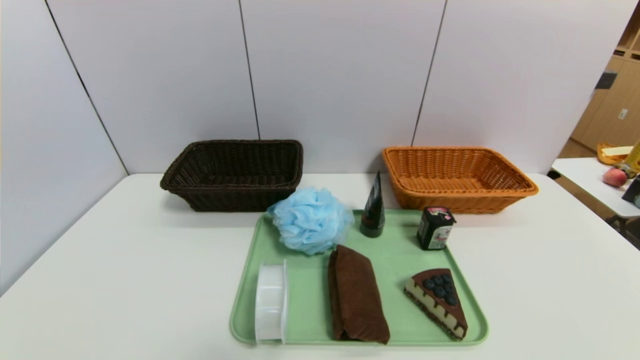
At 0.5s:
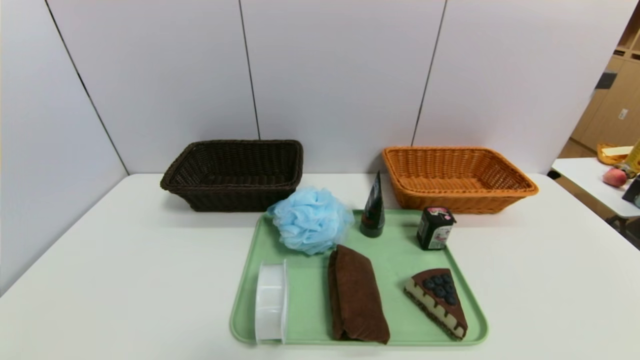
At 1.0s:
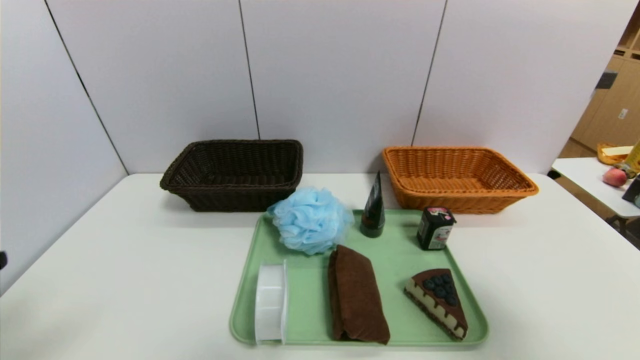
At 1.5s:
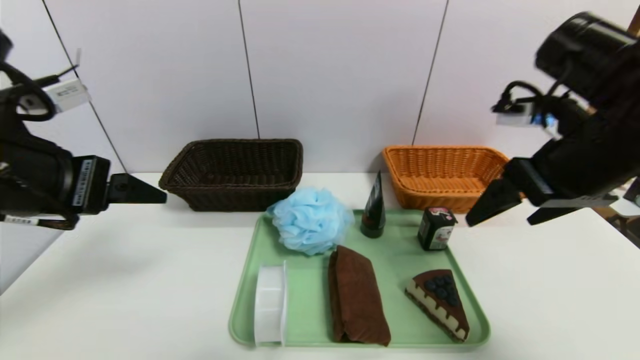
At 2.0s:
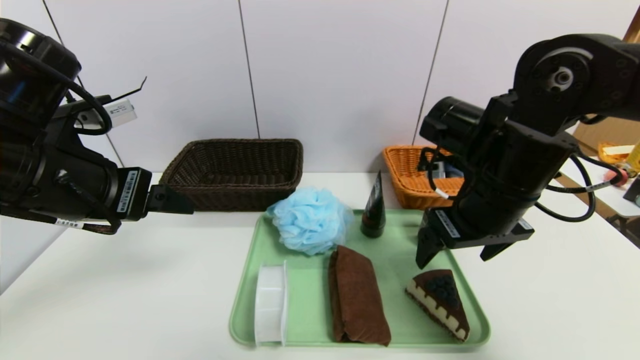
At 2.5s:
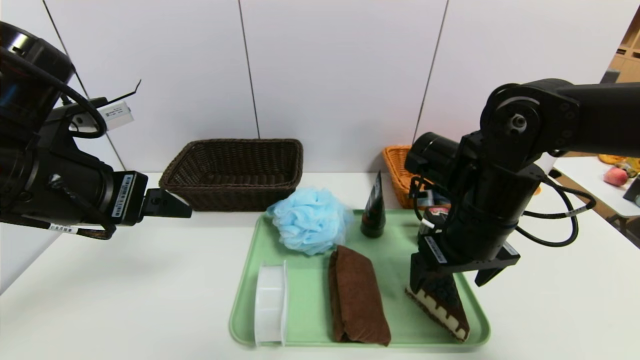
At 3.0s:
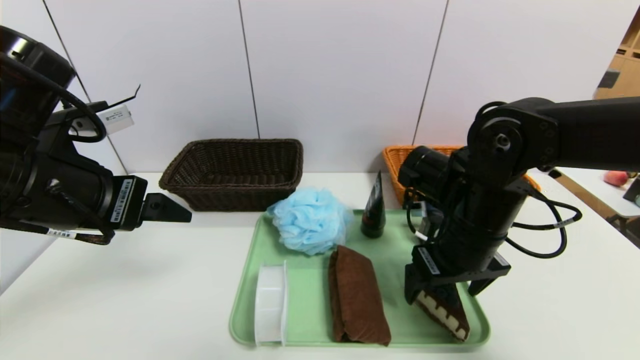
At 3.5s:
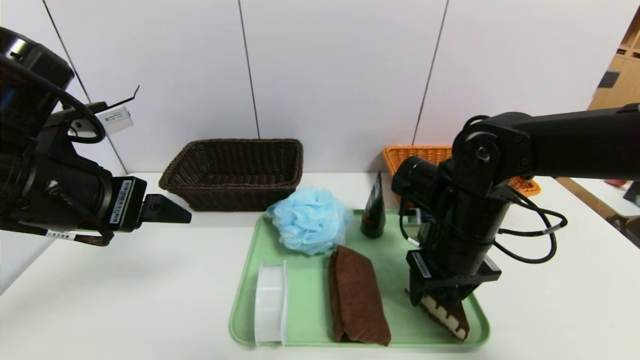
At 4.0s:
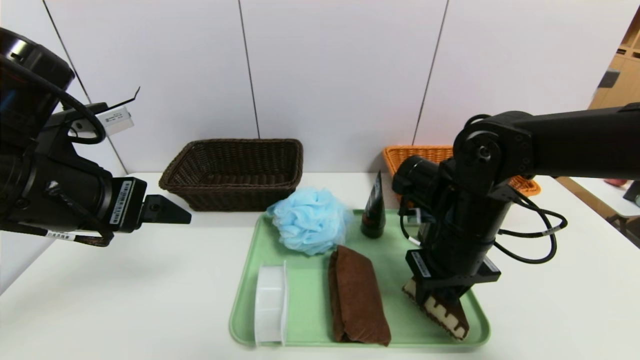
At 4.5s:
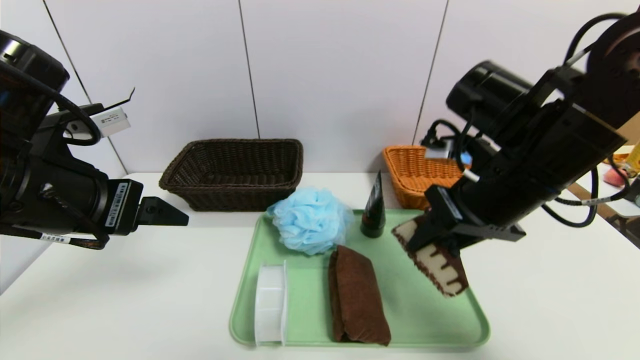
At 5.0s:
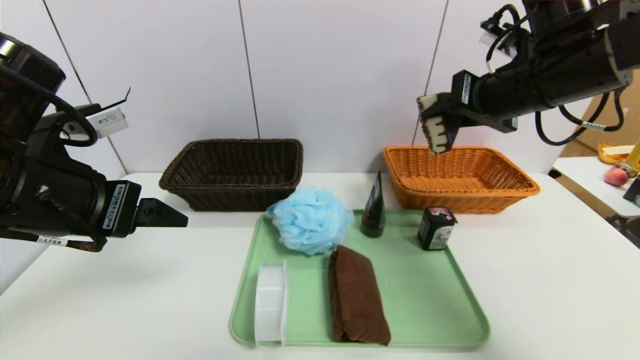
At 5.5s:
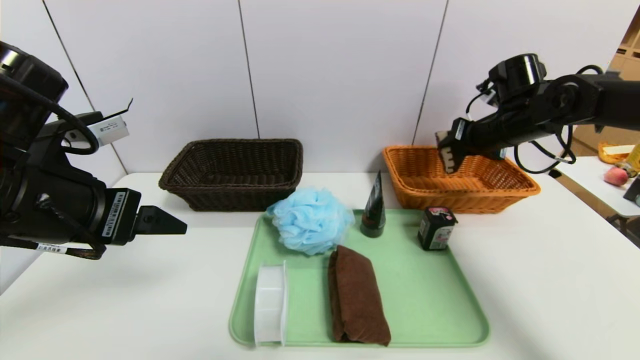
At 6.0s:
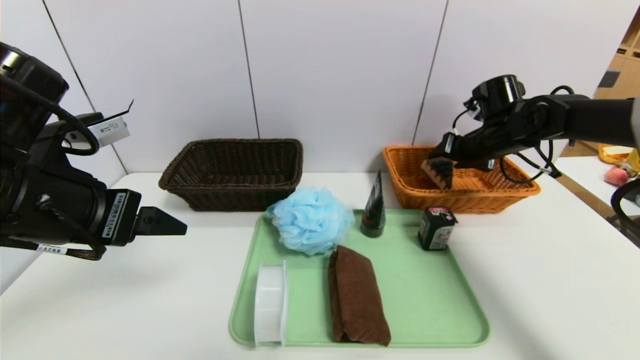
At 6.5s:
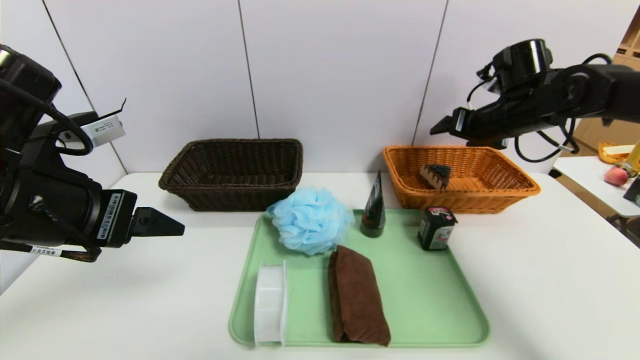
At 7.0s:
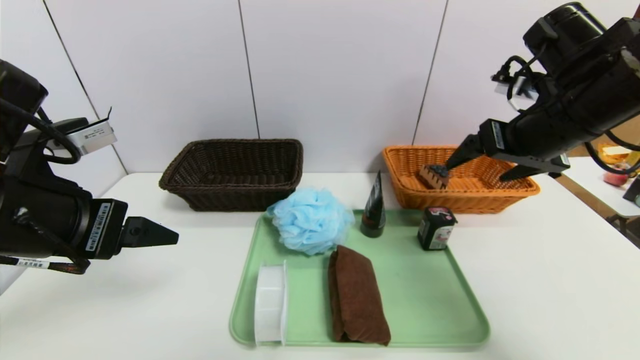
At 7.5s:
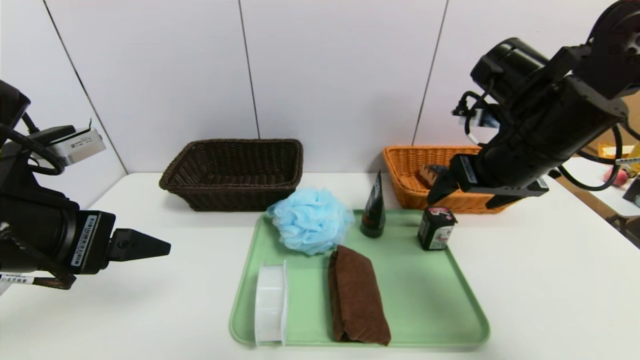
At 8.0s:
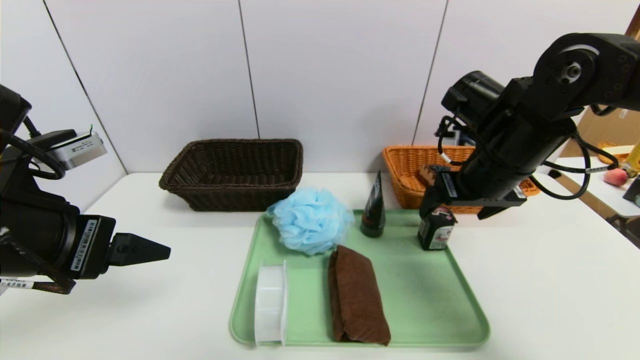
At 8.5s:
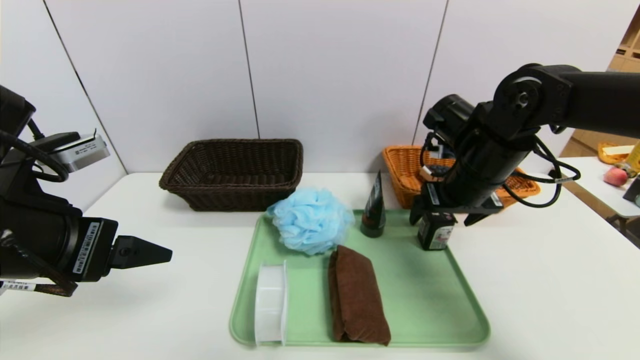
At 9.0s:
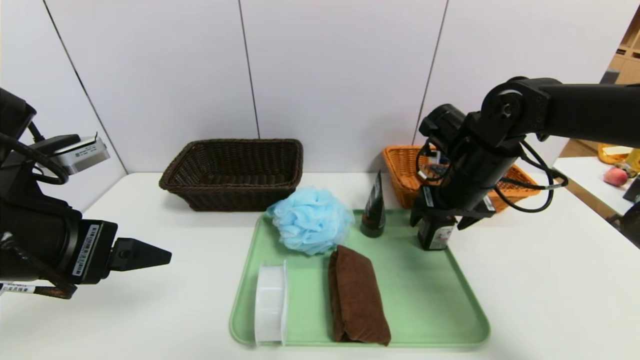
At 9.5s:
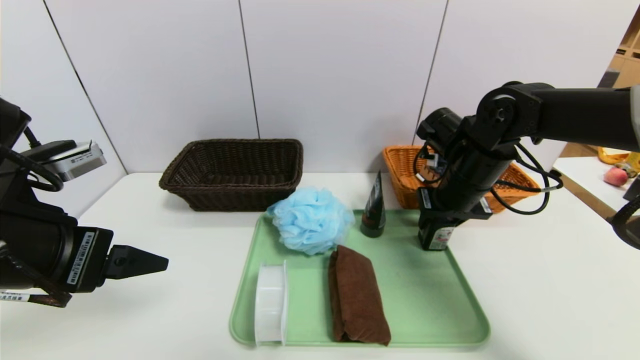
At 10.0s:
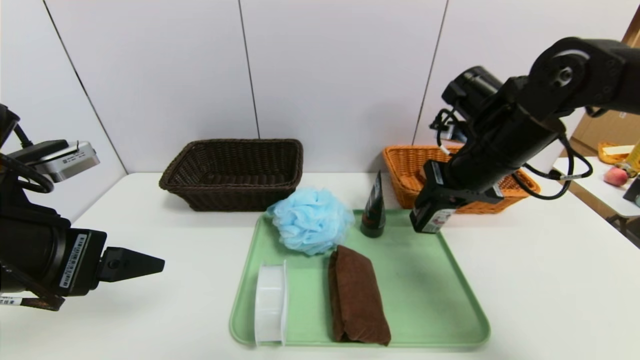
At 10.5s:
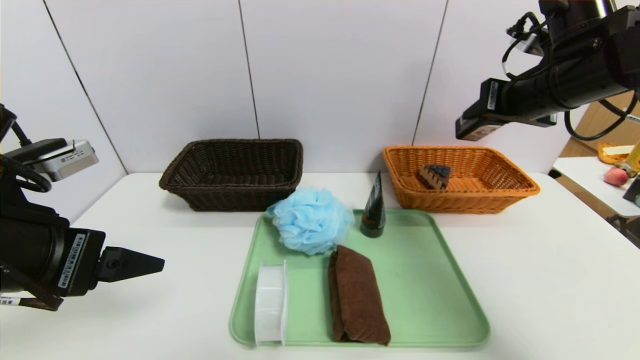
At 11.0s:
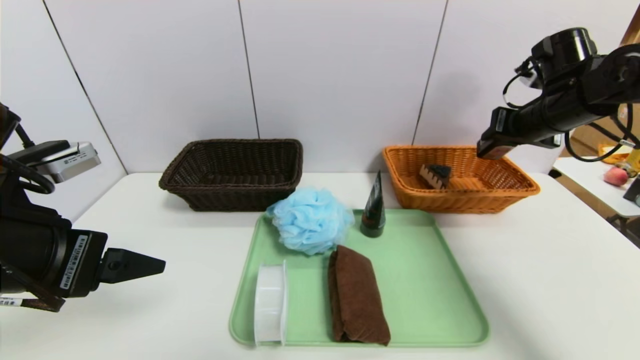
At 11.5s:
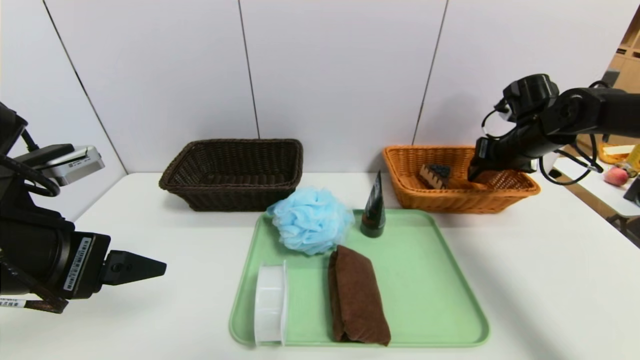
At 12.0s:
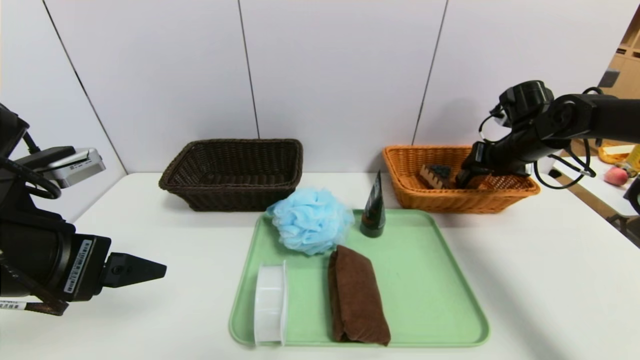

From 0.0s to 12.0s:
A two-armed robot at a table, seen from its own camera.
Task of the whole recording: place the food in the right basket with the right gripper, and place the non food items in the left basket with the left gripper.
Step, from 0.0s to 6.5s: Grasp the triangle cake and put it in the right basket.
From 0.0s to 2.0s: The right gripper moves forward, upward and to the left, approximately 35 cm; the left gripper heads forward and upward, covering about 30 cm.
From 2.0s to 4.0s: The right gripper heads downward, covering approximately 5 cm, and closes.
From 4.0s to 6.0s: The right gripper heads forward and to the right, covering roughly 20 cm, and opens.
From 6.0s to 8.0s: The right gripper heads backward and to the left, covering some 15 cm, and opens up.
From 8.0s to 10.0s: The right gripper closes.
From 10.0s to 12.0s: The right gripper travels to the right, forward and downward by approximately 20 cm, and opens up.

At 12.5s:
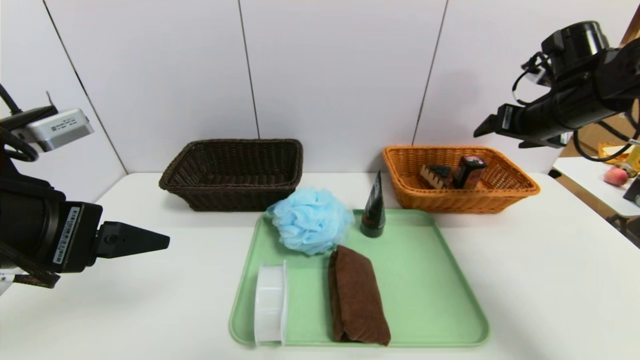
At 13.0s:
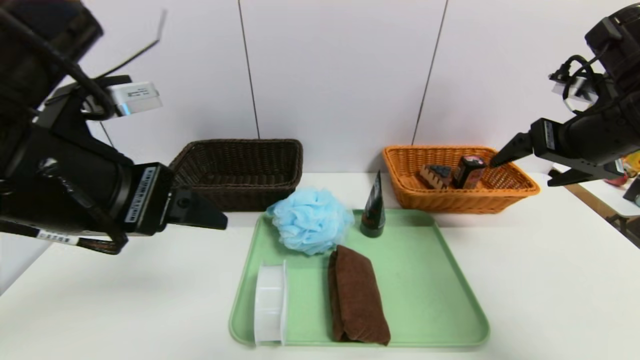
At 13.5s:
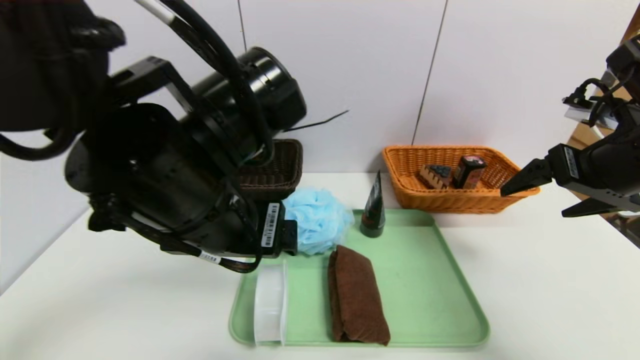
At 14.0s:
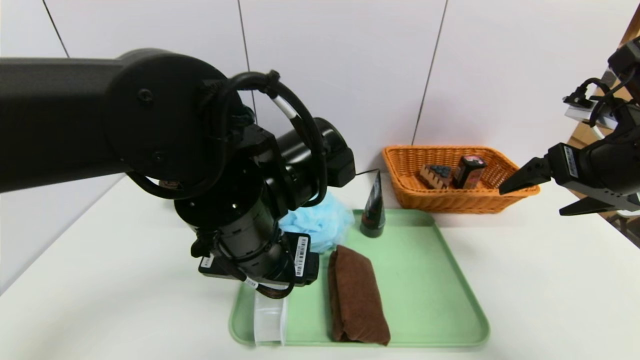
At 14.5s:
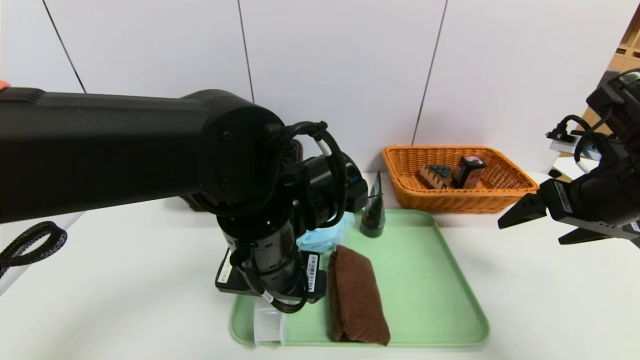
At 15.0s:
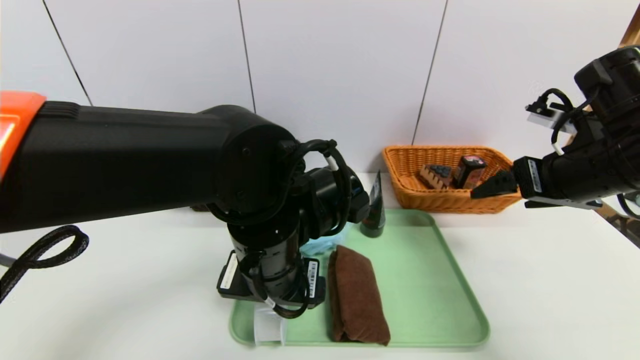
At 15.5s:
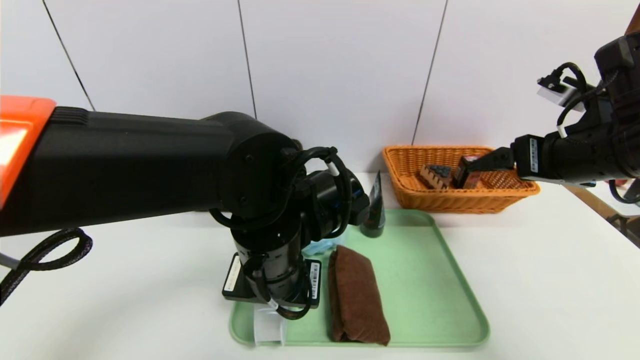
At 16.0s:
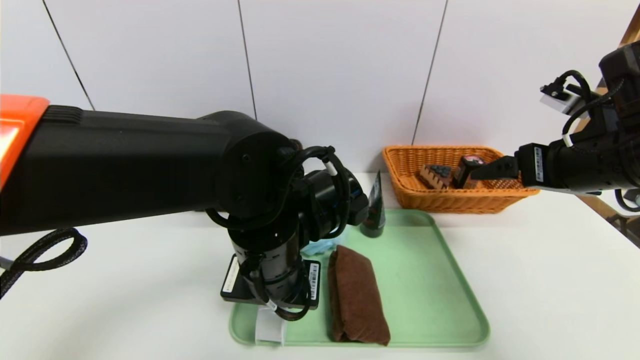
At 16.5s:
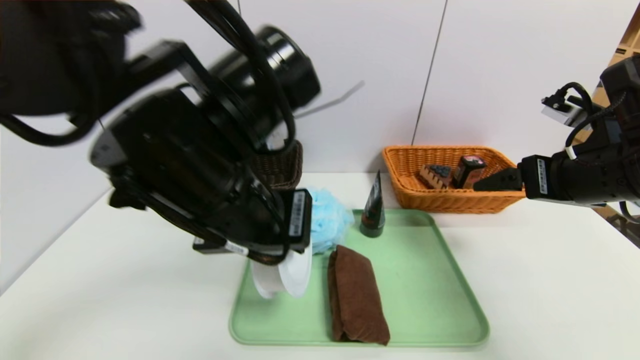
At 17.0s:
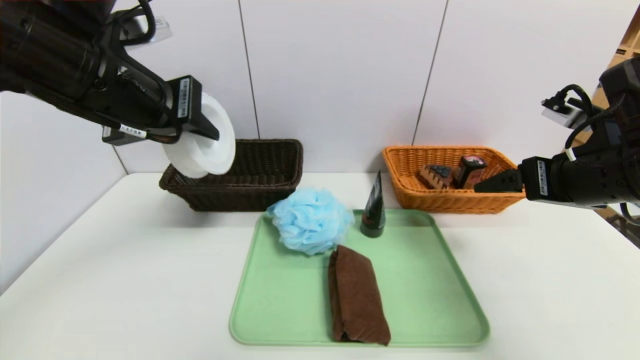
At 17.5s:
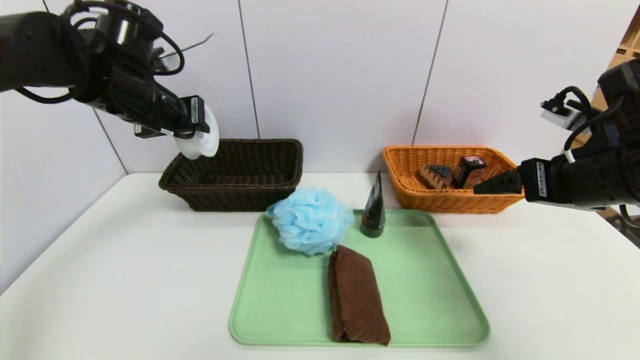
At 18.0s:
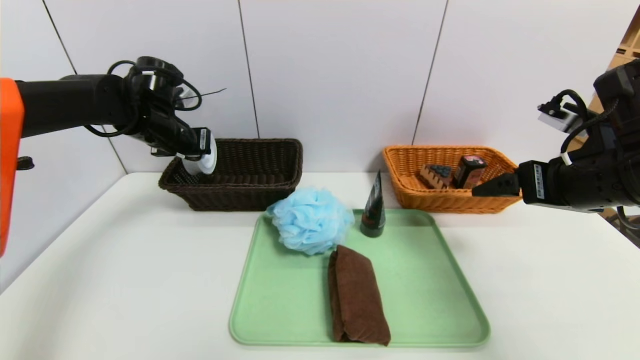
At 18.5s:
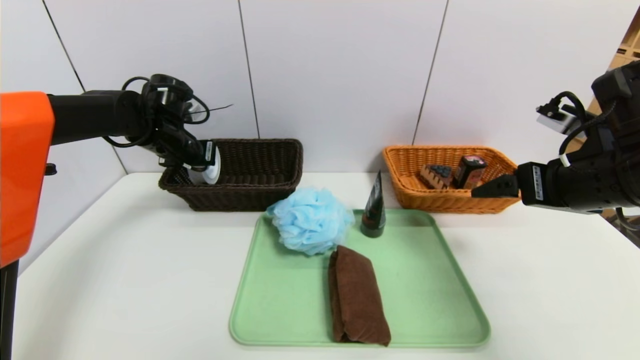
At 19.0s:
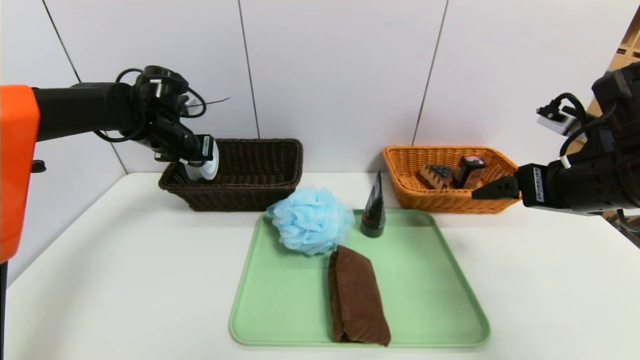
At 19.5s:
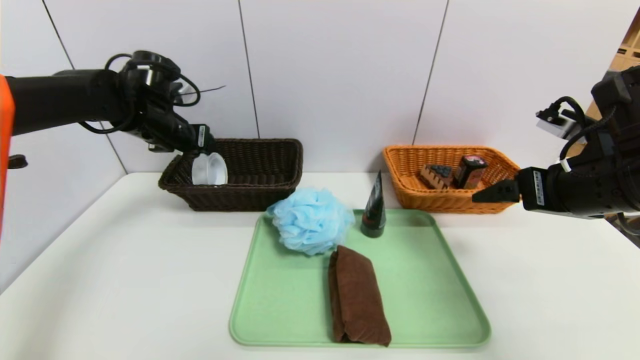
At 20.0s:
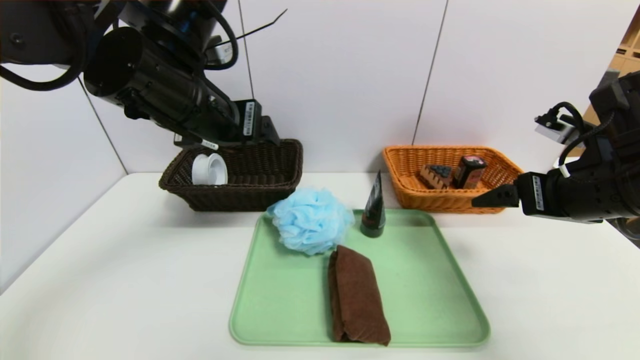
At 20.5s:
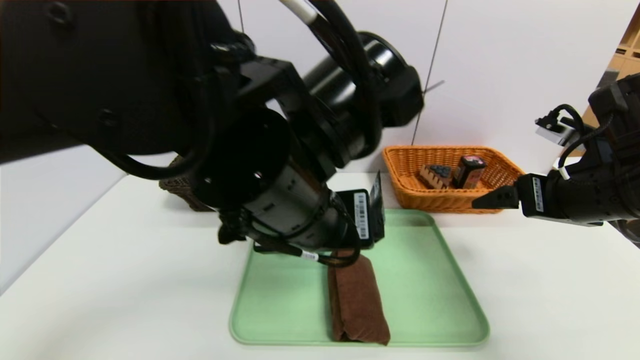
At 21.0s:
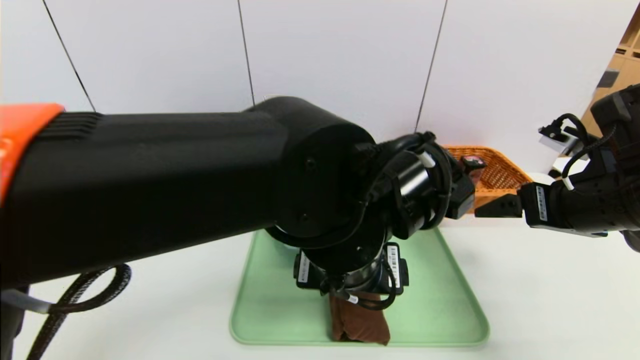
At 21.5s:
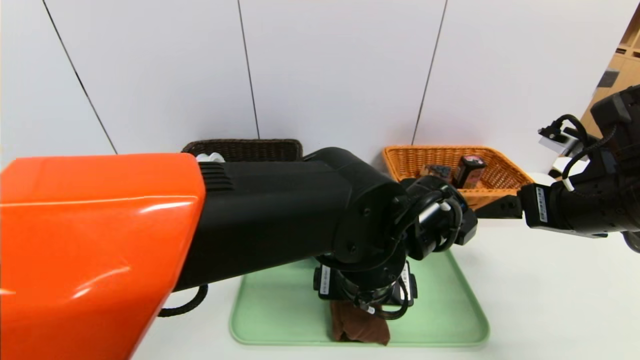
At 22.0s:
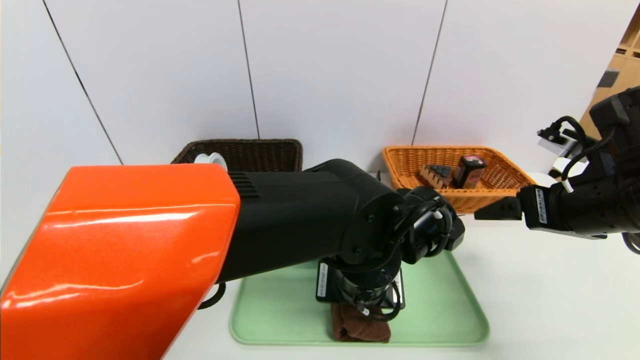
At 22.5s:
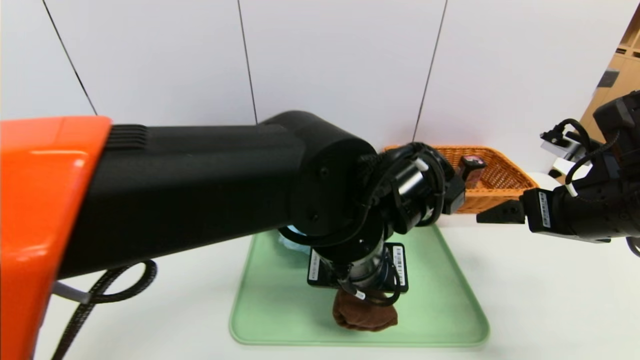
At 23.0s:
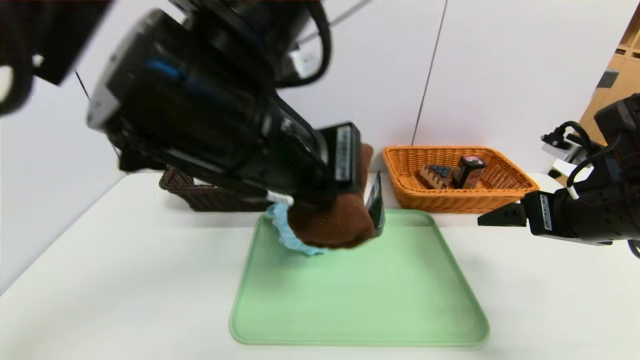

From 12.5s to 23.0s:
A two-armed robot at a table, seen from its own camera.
Task of the whole recording: place the food in the right basket with the right gripper, and place the non food items in the left basket with the left gripper.
Step, from 13.0s to 20.0s: Grasp the tape and put it in the left basket.
From 12.5s to 14.5s: The right gripper is displaced backward by roughly 10 cm, while the left gripper goes some 20 cm to the right and downward.
From 14.5s to 16.5s: The left gripper shifts some 10 cm upward, and closes up.
From 16.5s to 19.0s: The left gripper is displaced forward and to the left by roughly 30 cm.
From 19.0s to 21.0s: The left gripper moves to the right and backward, approximately 35 cm, and opens.
From 21.0s to 23.0s: The left gripper moves upward and to the left, approximately 15 cm, and closes.
